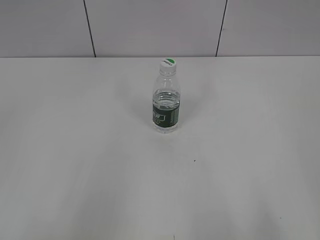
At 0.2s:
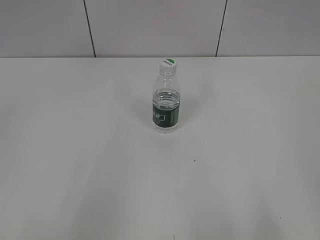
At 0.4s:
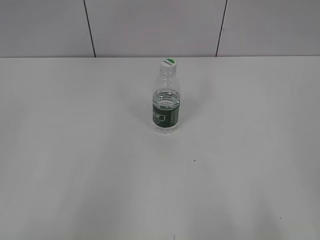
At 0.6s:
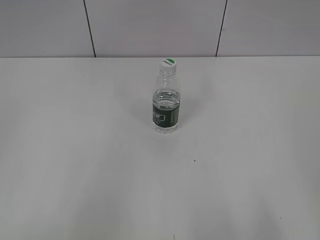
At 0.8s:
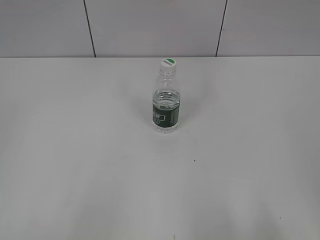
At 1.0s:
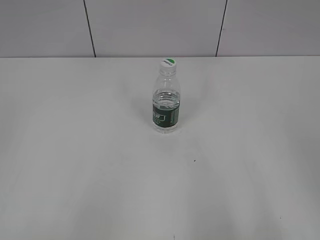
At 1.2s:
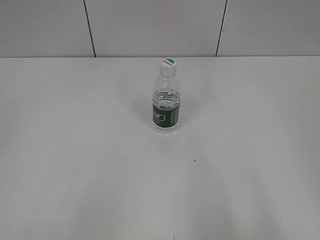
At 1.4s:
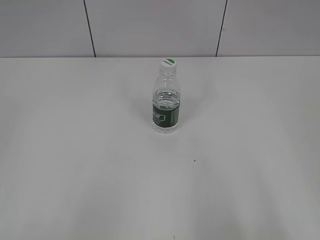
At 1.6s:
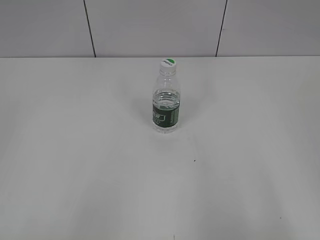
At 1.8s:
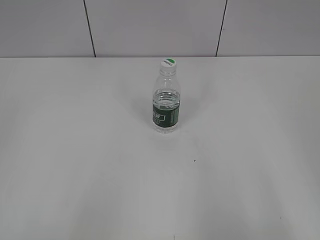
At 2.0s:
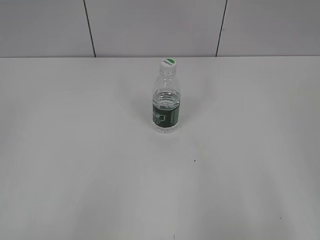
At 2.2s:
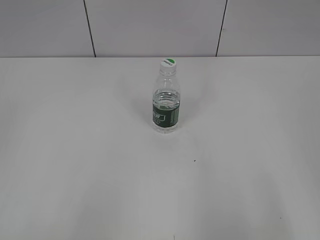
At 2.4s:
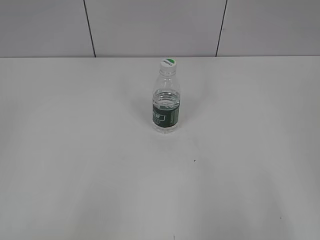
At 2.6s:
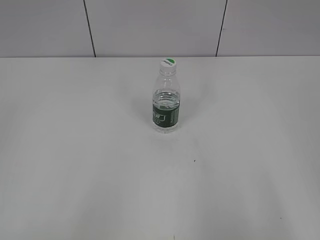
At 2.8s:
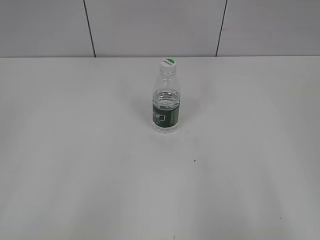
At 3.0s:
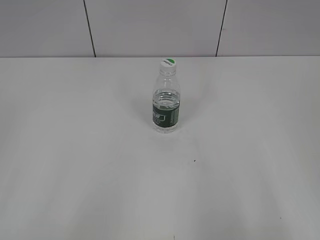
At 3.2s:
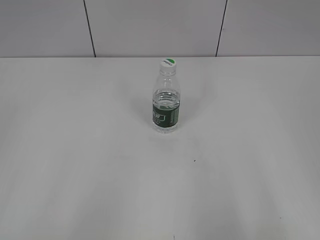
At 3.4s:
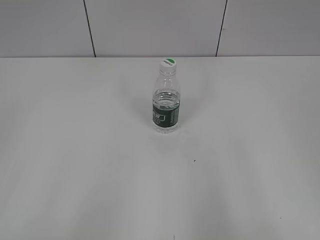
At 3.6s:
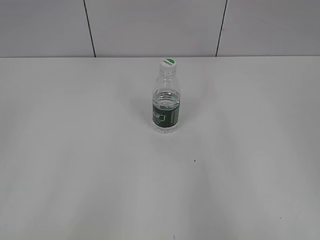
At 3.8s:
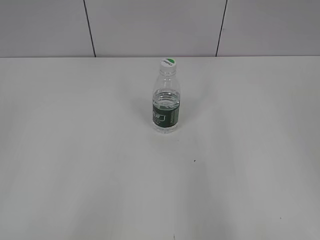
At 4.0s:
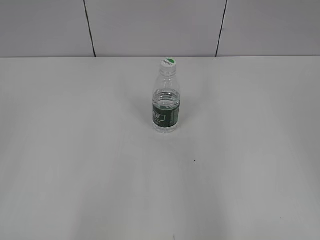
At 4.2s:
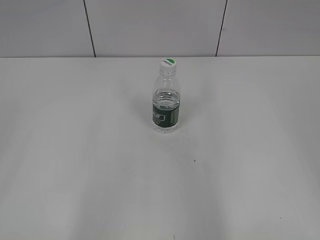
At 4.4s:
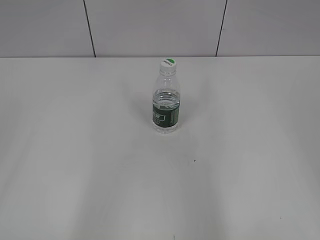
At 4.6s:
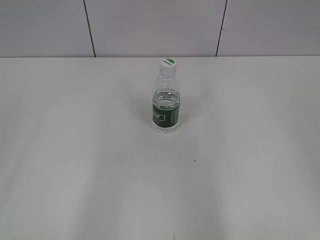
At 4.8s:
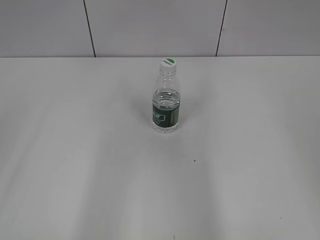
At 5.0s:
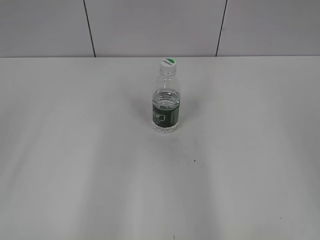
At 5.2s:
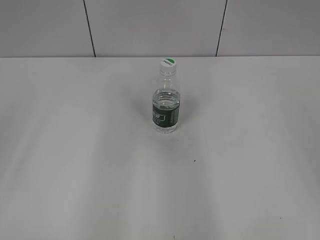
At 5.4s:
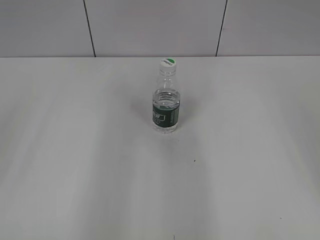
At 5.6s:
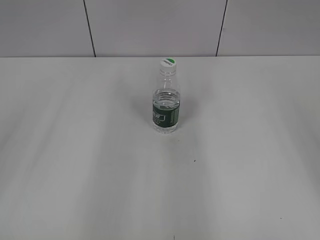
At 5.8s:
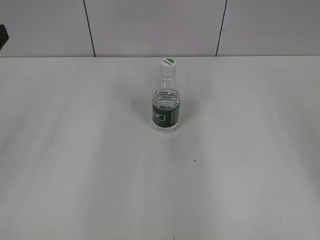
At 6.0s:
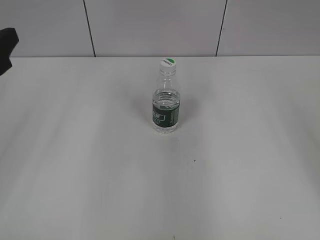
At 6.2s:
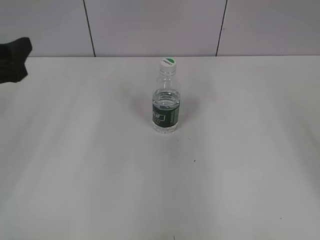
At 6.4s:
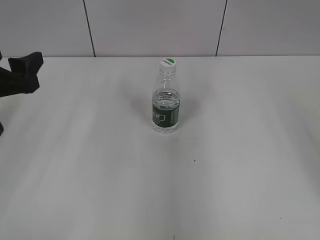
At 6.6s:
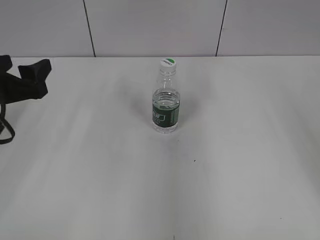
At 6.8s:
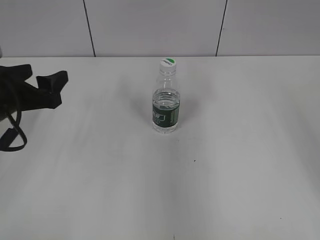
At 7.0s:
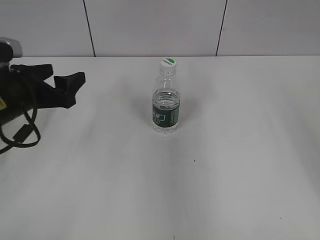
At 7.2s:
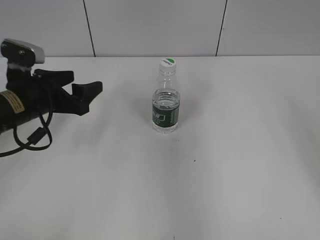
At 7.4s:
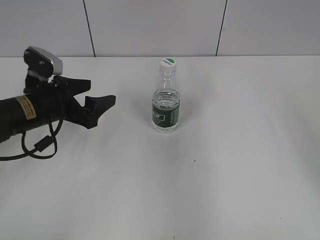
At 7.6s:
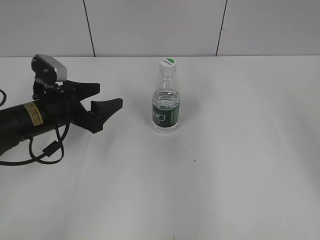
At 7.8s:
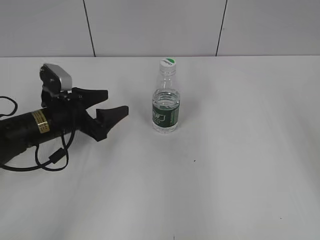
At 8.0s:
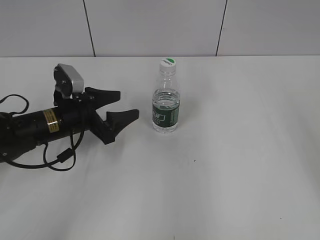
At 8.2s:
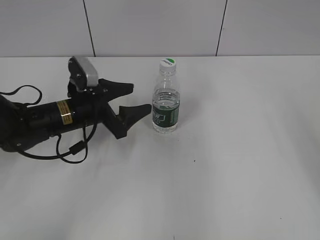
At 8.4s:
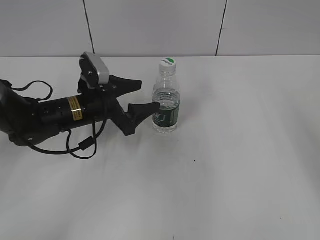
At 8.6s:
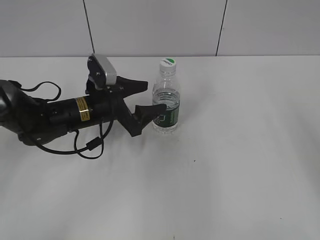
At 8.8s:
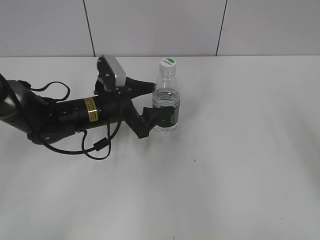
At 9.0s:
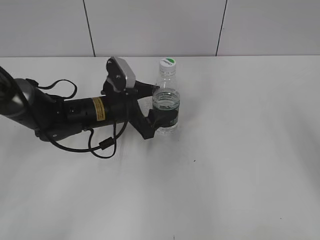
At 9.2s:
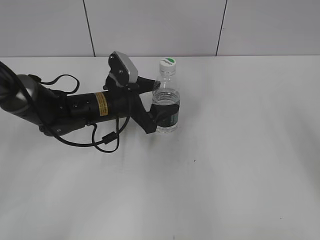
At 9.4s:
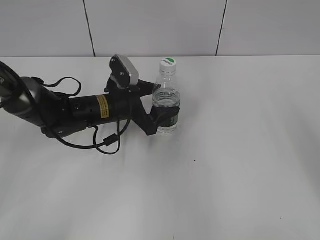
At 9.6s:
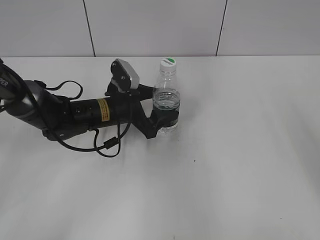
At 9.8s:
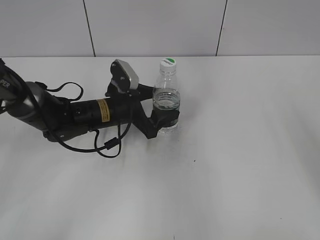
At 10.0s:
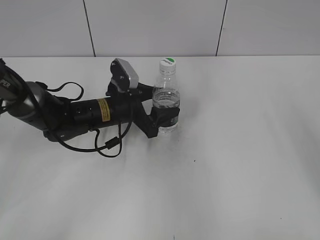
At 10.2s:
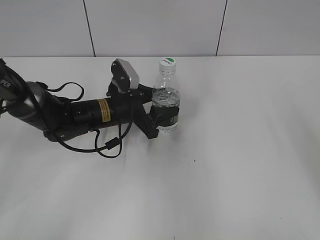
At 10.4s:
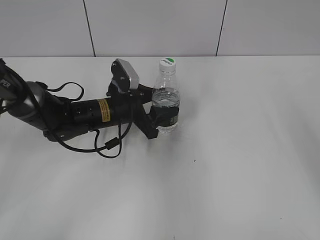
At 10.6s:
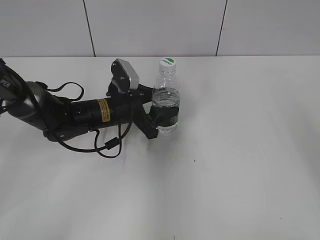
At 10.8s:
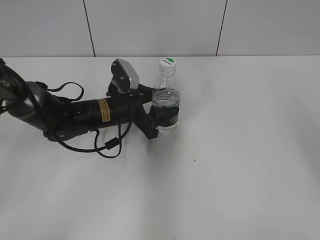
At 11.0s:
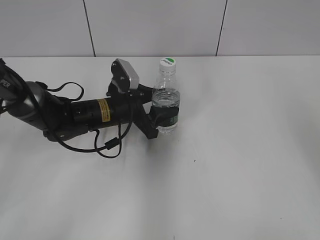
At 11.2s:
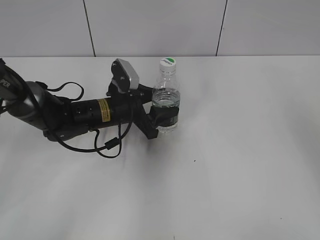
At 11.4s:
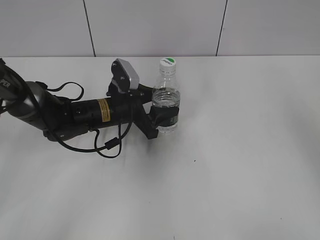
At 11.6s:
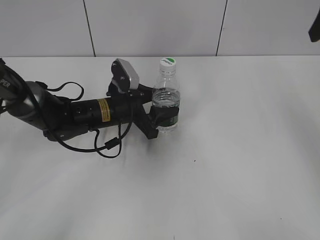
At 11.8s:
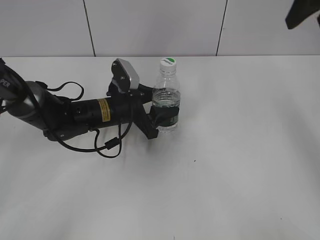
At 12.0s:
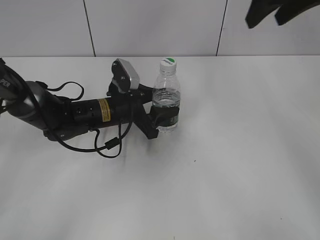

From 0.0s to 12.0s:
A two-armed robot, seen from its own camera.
Step, from 0.0s to 10.2s: Grasp the bottle and move it to the center of the table with the left gripper.
From 4.4s to 6.0s: The left gripper goes about 20 cm forward.
From 6.0s to 7.6s: The left gripper travels downward, forward and to the right by roughly 20 cm.
From 7.6s to 9.0s: The left gripper goes approximately 10 cm to the right.
From 9.0s to 10.4s: The left gripper closes its fingers.
From 10.4s to 12.0s: The right gripper travels forward and to the left by about 15 cm.

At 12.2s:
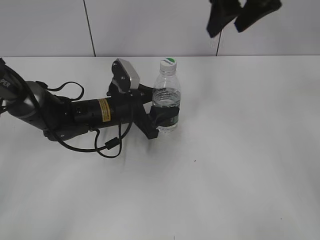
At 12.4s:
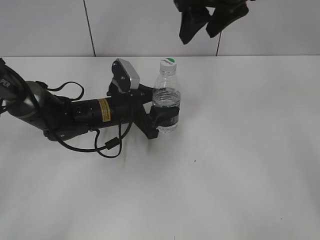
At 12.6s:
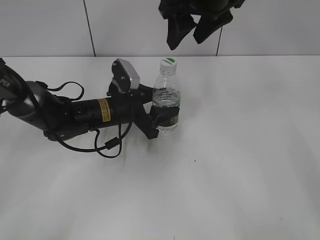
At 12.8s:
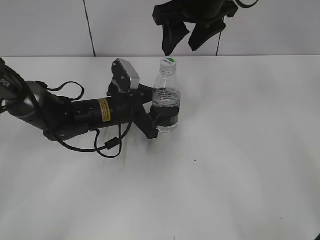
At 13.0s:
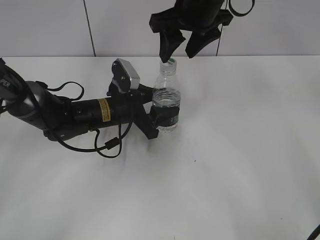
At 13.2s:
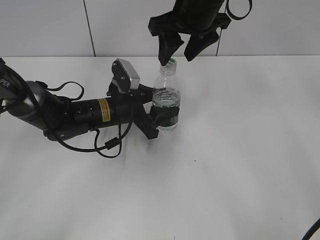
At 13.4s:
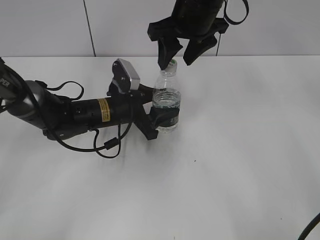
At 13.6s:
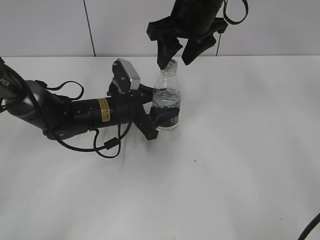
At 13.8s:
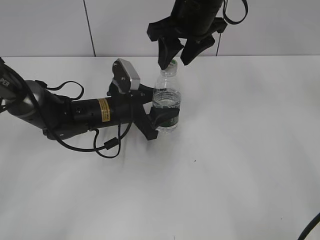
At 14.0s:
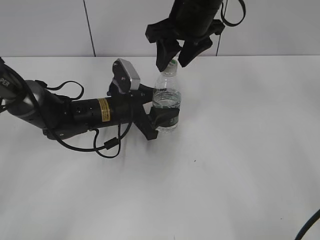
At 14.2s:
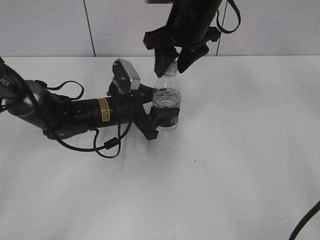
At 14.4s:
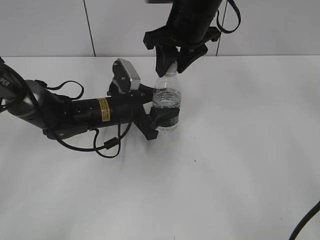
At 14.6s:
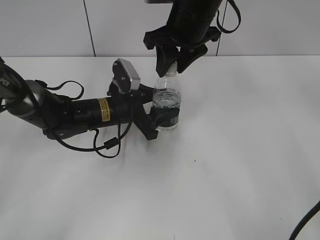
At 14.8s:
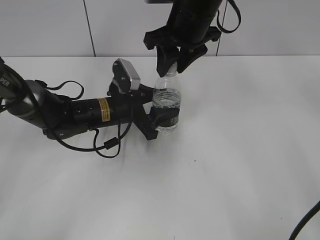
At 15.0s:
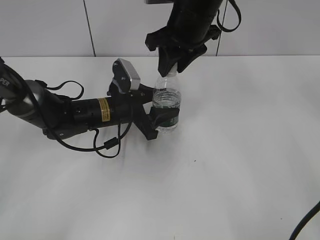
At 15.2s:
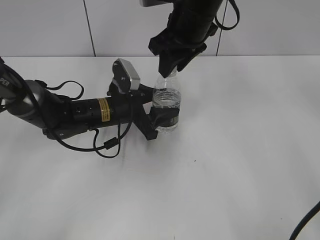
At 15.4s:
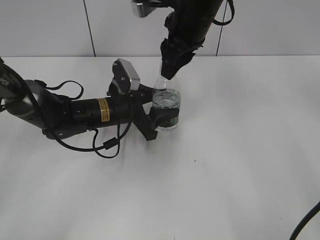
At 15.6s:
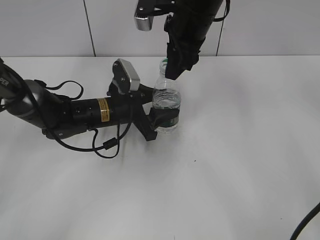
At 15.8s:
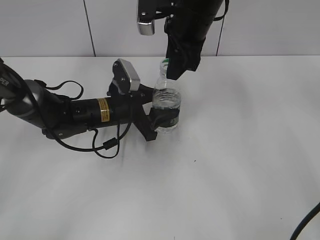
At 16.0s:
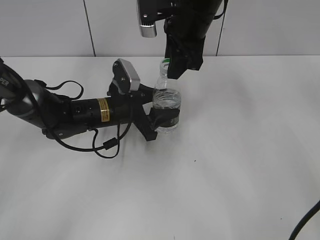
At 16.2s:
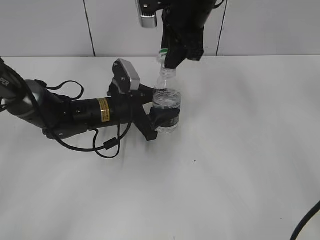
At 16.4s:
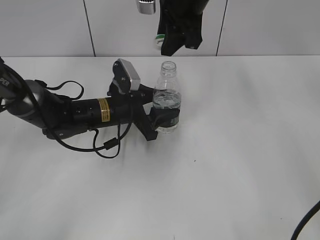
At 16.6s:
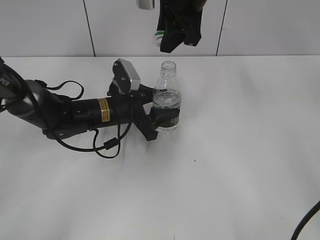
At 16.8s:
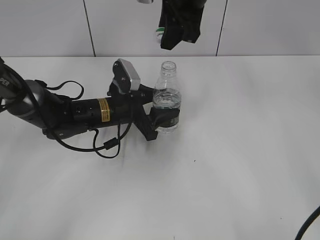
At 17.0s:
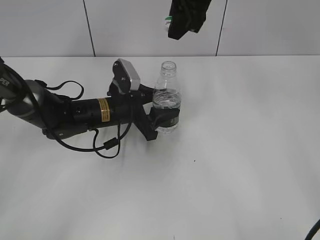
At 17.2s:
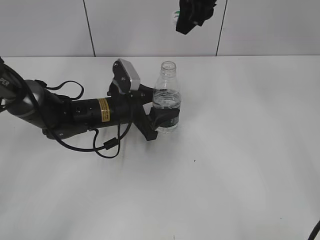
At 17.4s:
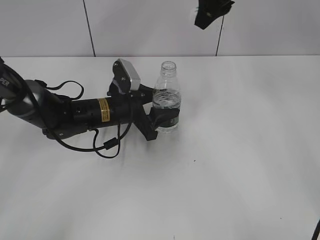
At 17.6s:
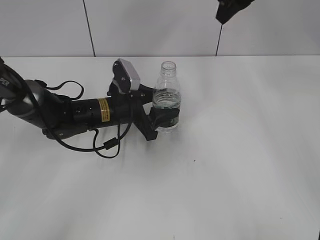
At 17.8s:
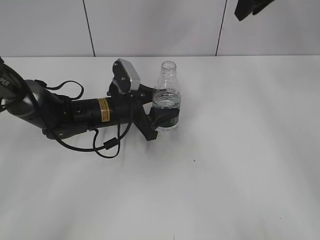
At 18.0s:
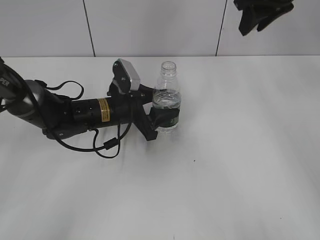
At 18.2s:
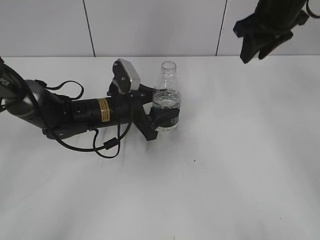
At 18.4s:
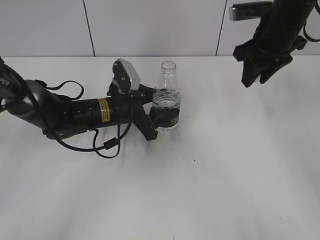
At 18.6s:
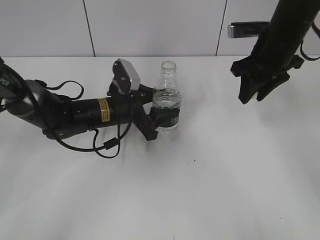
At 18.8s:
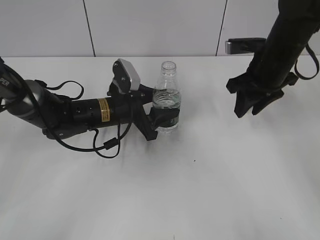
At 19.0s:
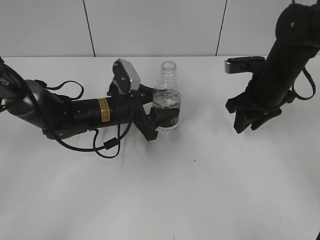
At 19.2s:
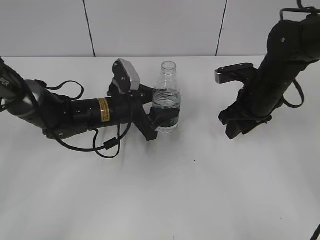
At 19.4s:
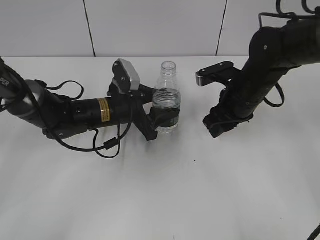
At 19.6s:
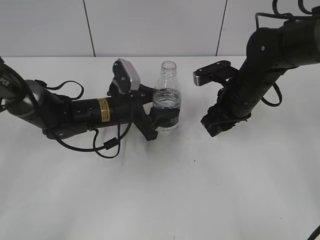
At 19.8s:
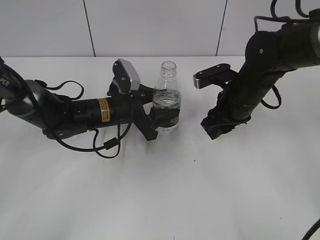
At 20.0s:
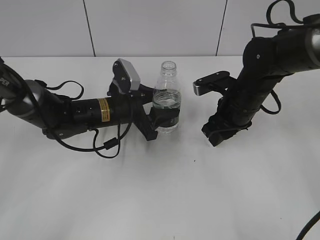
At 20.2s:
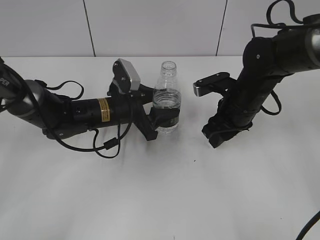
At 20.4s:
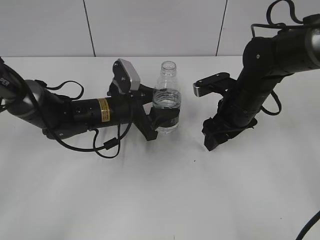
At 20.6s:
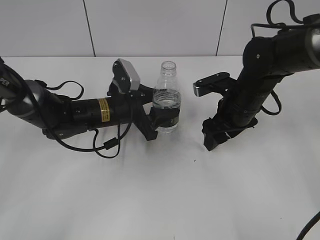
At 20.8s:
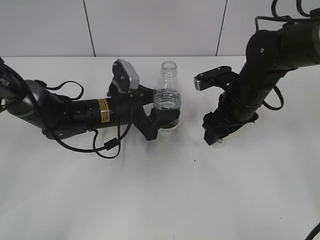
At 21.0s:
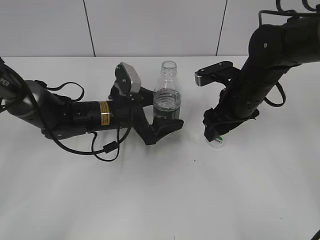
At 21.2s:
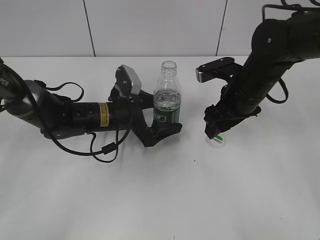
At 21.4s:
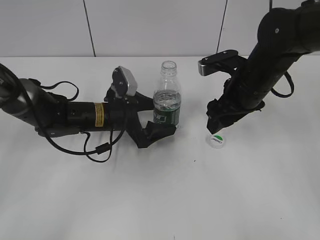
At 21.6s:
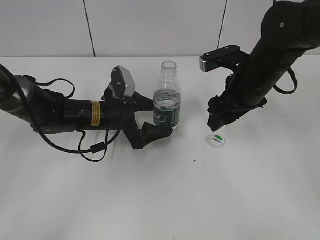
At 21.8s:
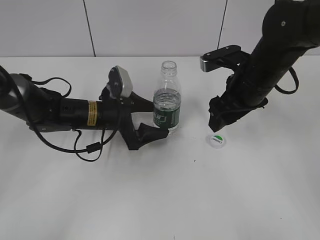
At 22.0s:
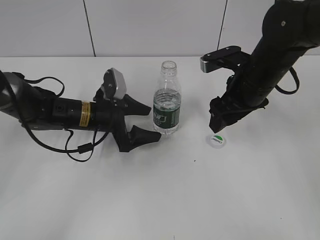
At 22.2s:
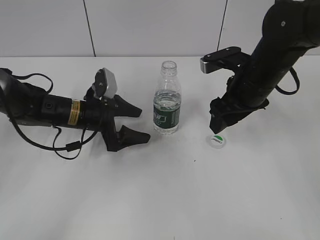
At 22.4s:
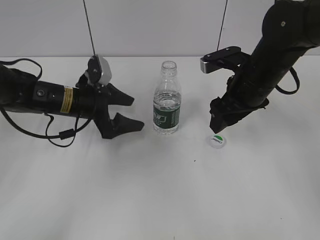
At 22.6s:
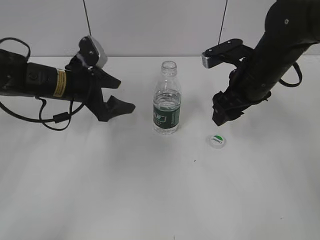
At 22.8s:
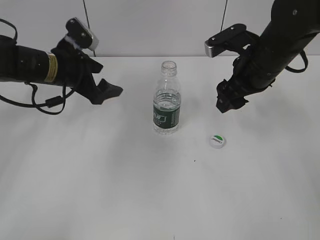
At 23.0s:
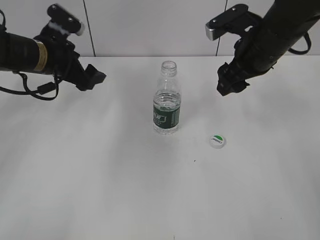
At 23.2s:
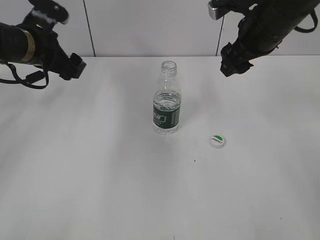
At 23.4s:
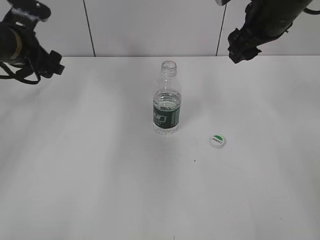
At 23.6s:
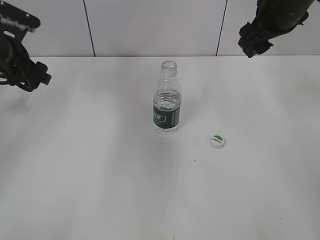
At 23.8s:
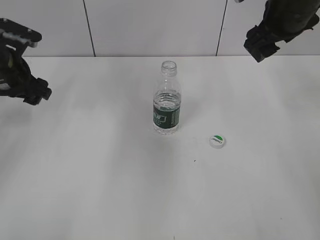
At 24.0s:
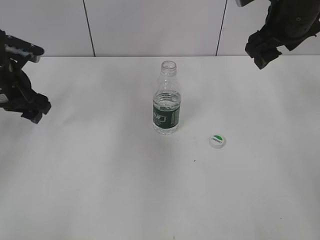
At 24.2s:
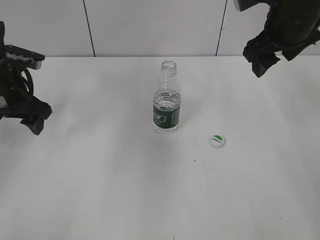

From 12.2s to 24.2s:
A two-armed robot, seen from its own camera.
Step, from 12.2s to 16.6s: Unscrew the bottle cap with the right gripper while holding the bottle with the left gripper.
Step, from 16.8s to 20.6s: Place the bottle cap on the table with the right gripper.
Step, from 20.8s to 22.2s: Place the bottle on the table with the left gripper.
From 12.2s to 13.8s: The right gripper moves to the left and downward, approximately 10 cm.
From 13.8s to 15.2s: The right gripper closes its fingers.
From 16.6s to 18.2s: The right gripper heads to the right, covering approximately 15 cm.
From 18.2s to 19.8s: The right gripper is displaced downward and backward by about 15 cm.
From 19.8s to 21.2s: The left gripper opens up. The right gripper opens.
From 21.2s to 22.6s: The left gripper heads to the left and upward, covering some 10 cm.
From 22.6s to 24.2s: The right gripper travels upward by about 10 cm. Meanwhile the left gripper is displaced to the left and upward by about 10 cm.
